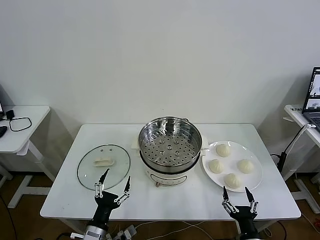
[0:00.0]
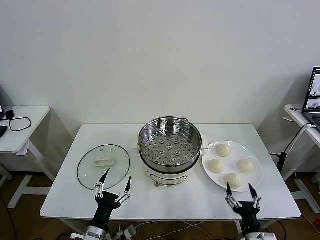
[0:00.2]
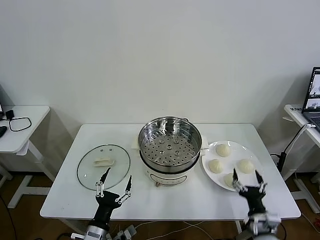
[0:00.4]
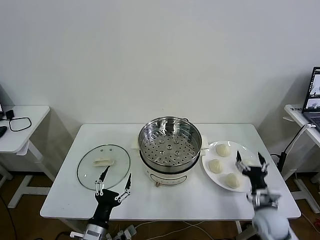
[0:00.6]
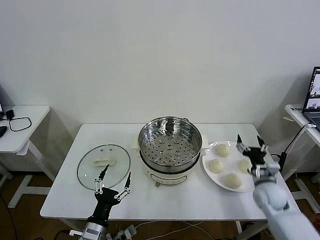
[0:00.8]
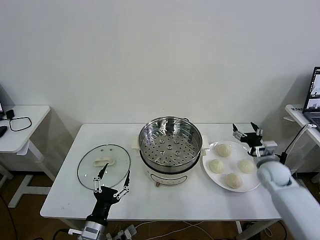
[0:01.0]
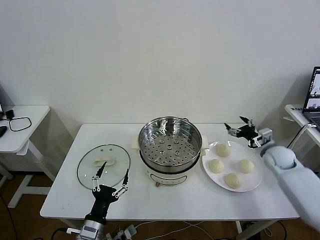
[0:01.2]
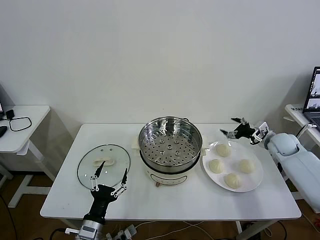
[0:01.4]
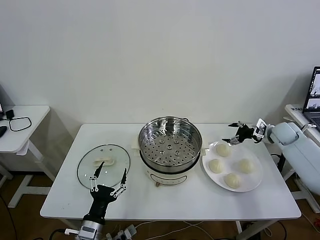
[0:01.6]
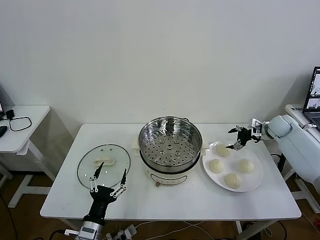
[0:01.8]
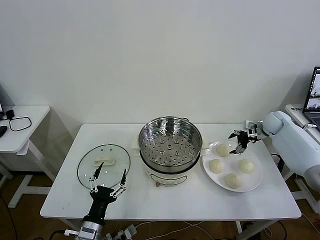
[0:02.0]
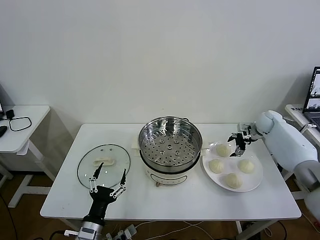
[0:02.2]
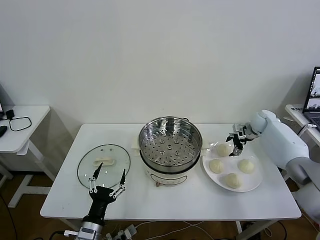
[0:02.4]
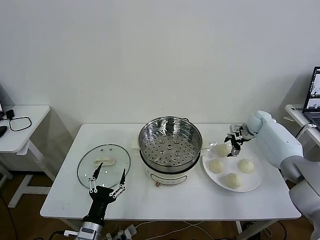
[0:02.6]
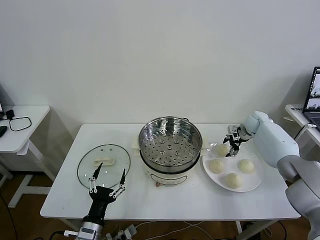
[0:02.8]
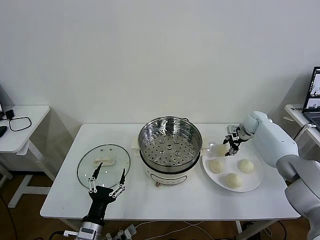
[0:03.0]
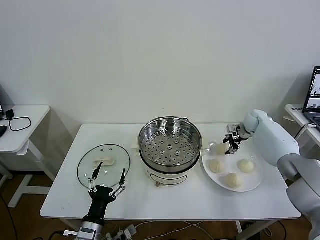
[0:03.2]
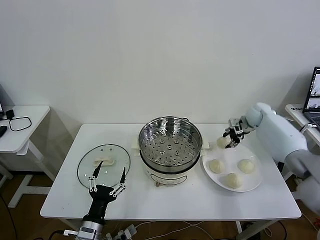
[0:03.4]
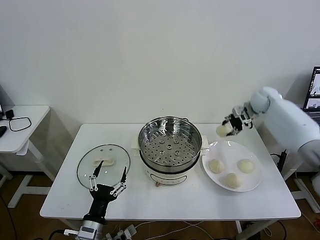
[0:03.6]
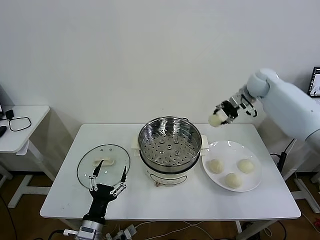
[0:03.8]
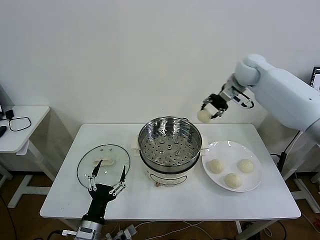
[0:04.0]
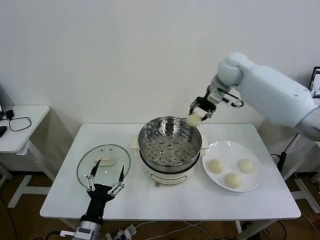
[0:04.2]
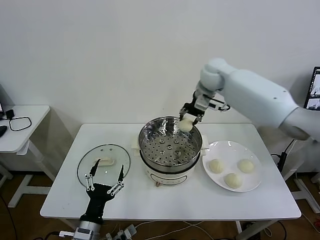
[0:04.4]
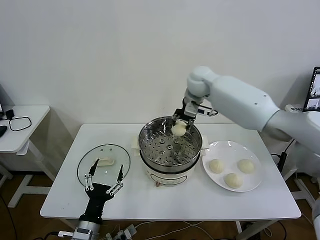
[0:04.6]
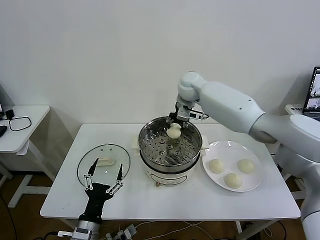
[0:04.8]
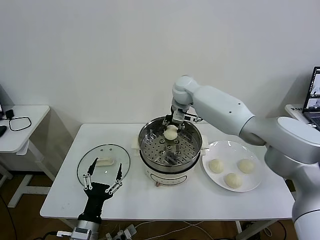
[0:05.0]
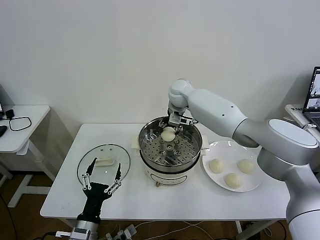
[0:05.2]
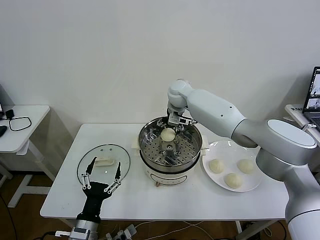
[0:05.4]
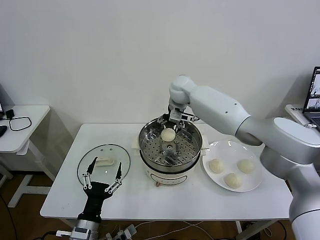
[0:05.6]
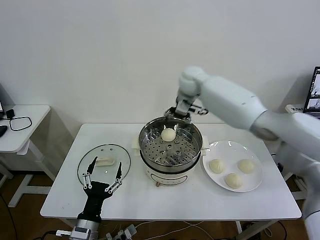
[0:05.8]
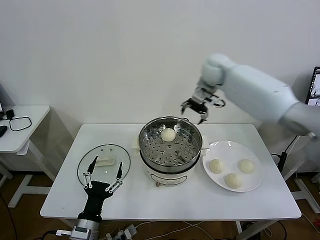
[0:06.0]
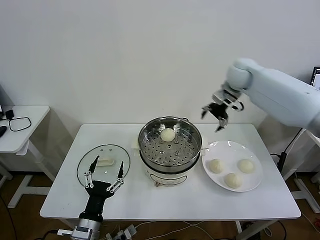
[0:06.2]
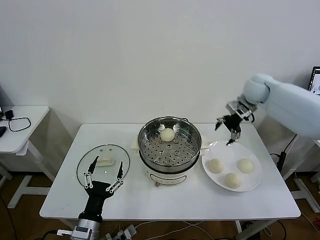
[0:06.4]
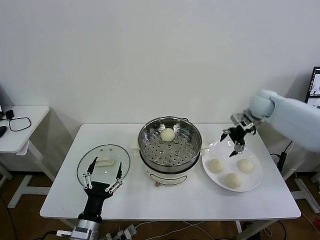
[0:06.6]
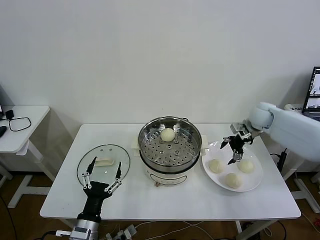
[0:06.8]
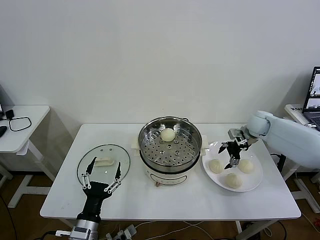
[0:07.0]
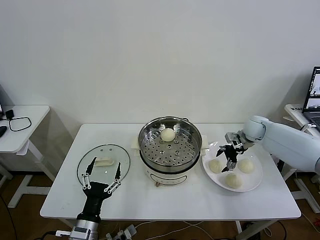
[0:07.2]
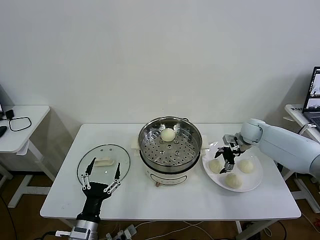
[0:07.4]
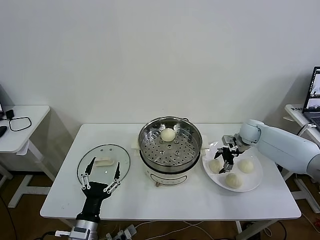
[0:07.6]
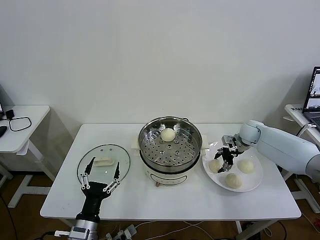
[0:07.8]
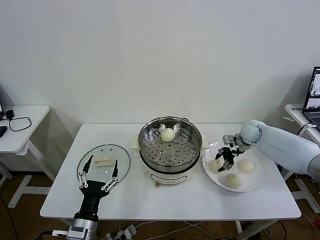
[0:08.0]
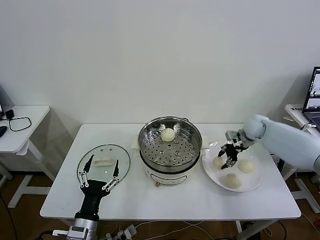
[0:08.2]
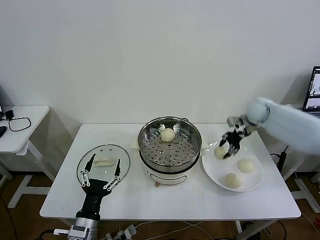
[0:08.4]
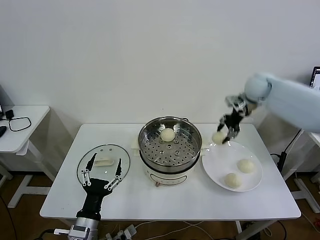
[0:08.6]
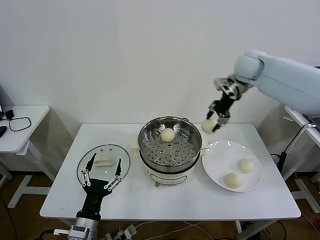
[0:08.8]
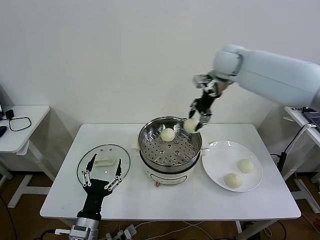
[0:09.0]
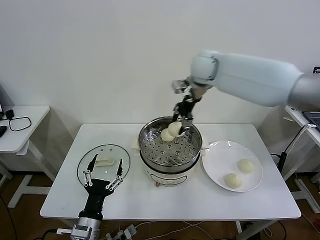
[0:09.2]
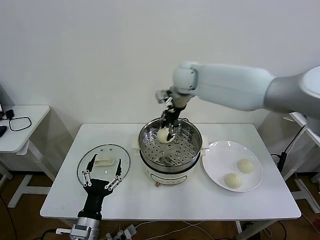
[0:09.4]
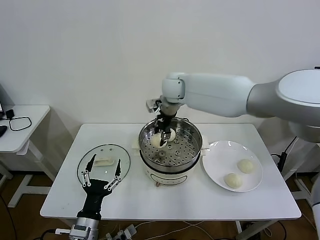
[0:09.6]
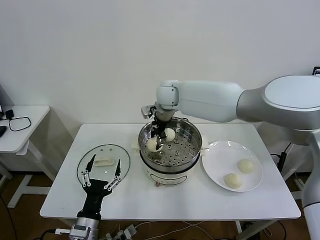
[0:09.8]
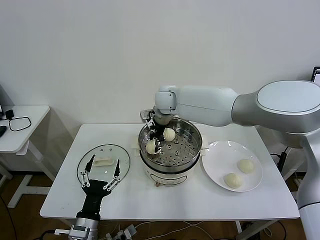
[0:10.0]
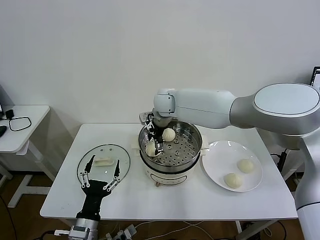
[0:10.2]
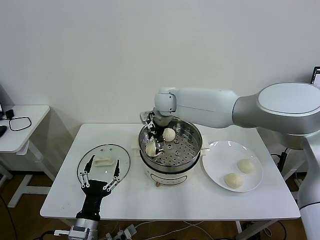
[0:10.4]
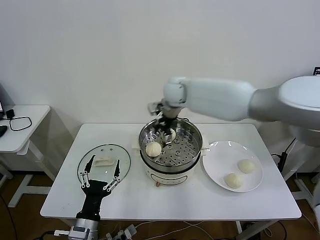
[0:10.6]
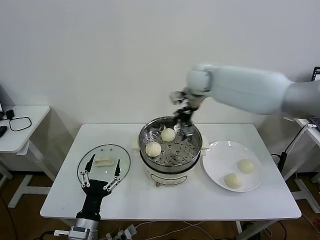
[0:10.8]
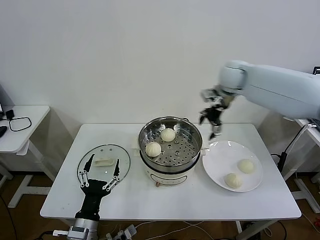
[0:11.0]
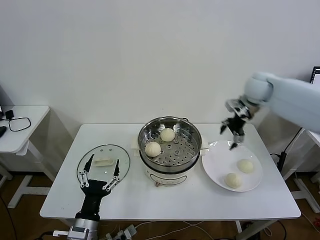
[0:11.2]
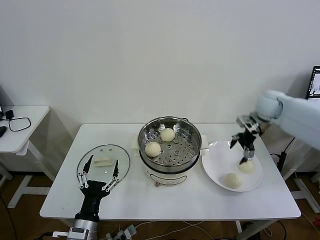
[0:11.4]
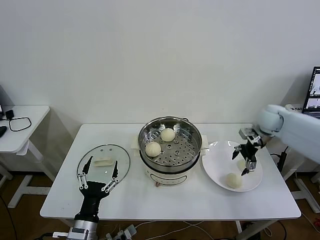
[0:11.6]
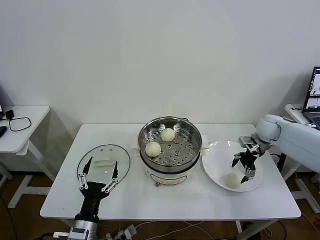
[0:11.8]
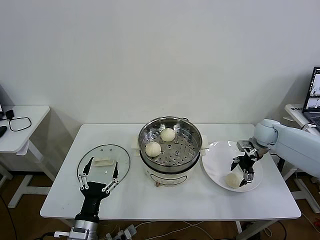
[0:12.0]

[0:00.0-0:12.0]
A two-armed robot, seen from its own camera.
Task of the whole recording: take steamed baozi put them in steamer then cover it.
Step, 0:00.0 to 0:03.0: Grasp the baozi in the plate with right gripper.
Step, 0:03.2 to 0:05.2: Place the baozi on the steamer with right gripper.
Step, 0:05.4 to 0:07.8: Grasp the baozi in the plate with right gripper.
Step, 0:08.0 to 0:10.2: Place the baozi on the steamer with right gripper.
0:01.6 to 0:03.0: The right gripper shifts some 10 cm to the left and forward, and closes up.
0:03.0 to 0:04.4: The right gripper moves to the left and upward, some 35 cm.
0:04.4 to 0:06.0: The right gripper shifts roughly 5 cm to the right, and opens.
0:06.0 to 0:07.6: The right gripper goes some 30 cm downward and to the right.
0:07.6 to 0:09.0: The right gripper moves upward and to the left, about 35 cm, and closes its fingers.
0:09.0 to 0:10.4: The right gripper travels to the left and downward by approximately 20 cm, and opens its fingers.
0:10.4 to 0:12.0: The right gripper is displaced to the right by approximately 35 cm.

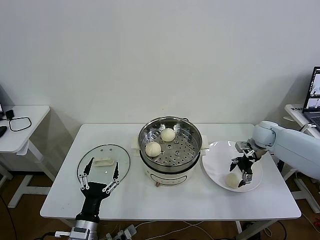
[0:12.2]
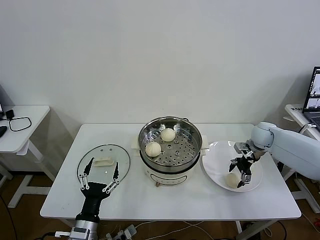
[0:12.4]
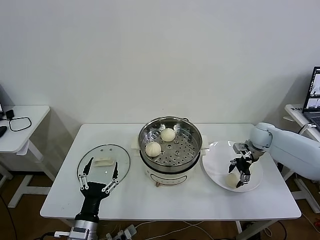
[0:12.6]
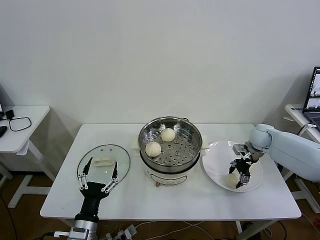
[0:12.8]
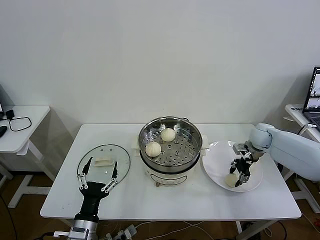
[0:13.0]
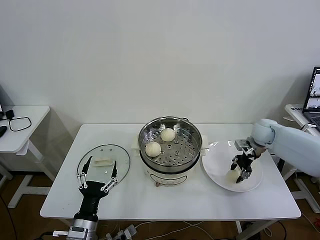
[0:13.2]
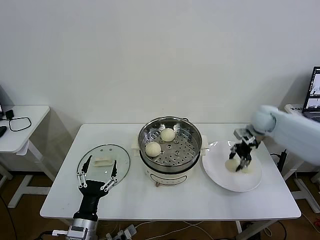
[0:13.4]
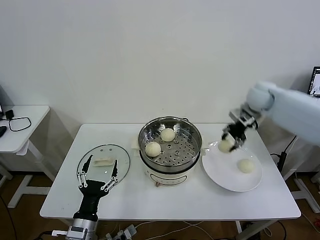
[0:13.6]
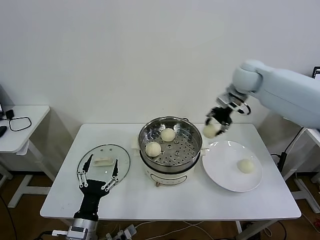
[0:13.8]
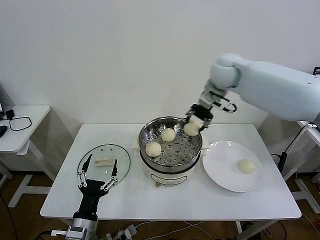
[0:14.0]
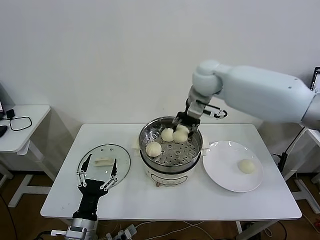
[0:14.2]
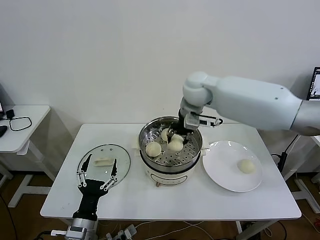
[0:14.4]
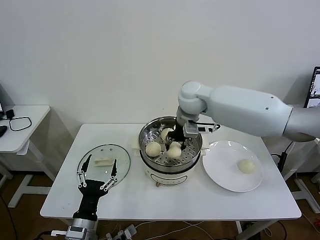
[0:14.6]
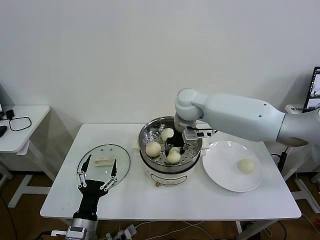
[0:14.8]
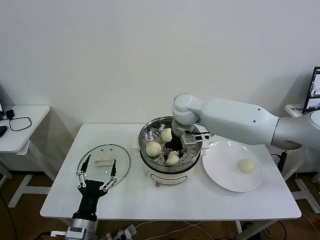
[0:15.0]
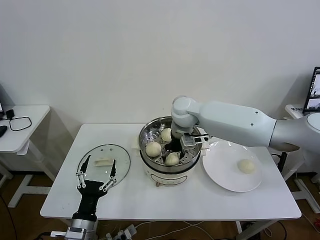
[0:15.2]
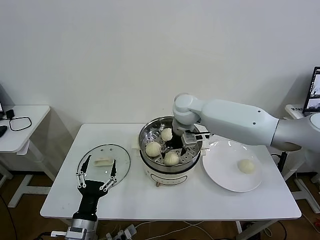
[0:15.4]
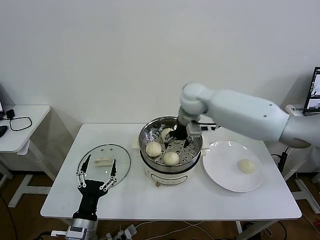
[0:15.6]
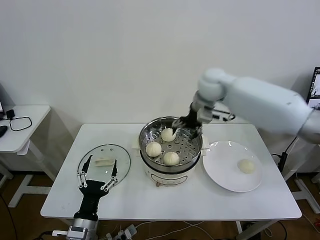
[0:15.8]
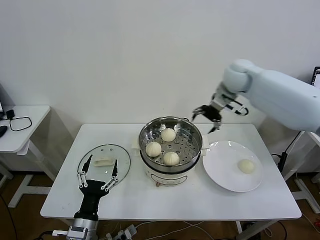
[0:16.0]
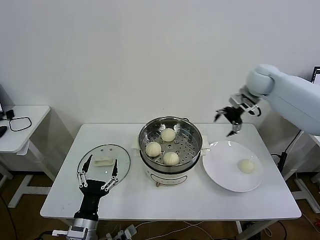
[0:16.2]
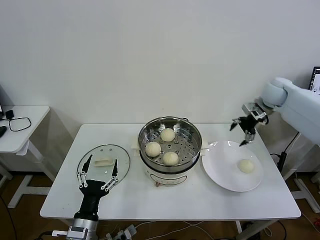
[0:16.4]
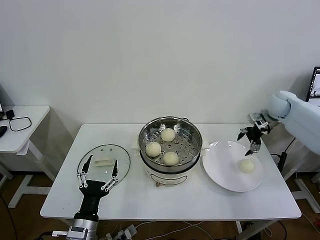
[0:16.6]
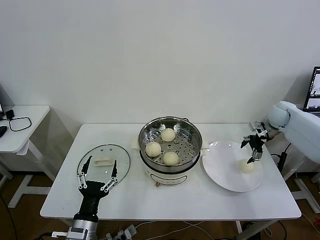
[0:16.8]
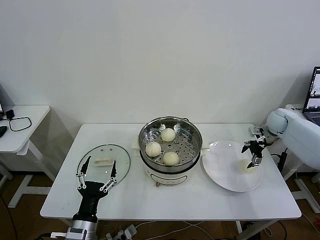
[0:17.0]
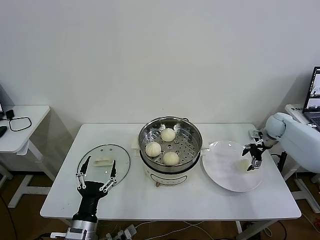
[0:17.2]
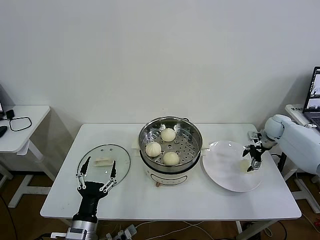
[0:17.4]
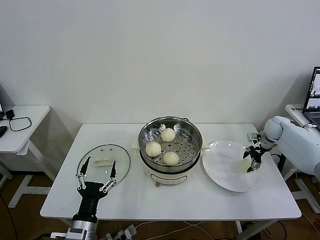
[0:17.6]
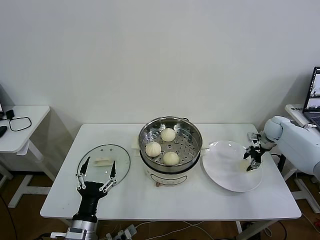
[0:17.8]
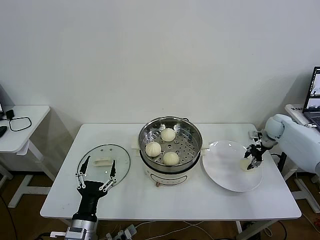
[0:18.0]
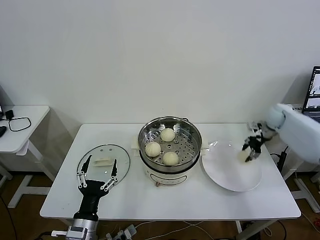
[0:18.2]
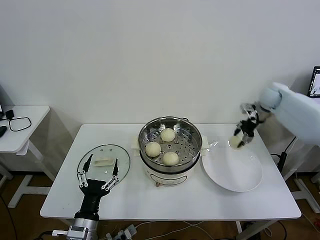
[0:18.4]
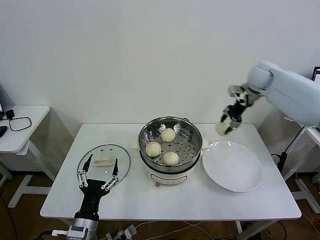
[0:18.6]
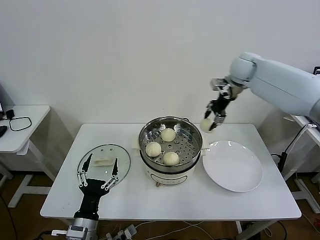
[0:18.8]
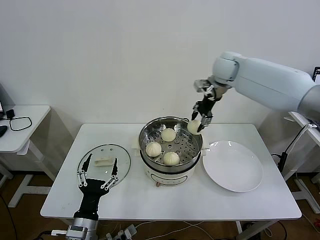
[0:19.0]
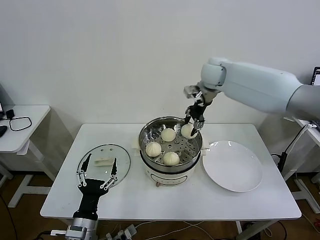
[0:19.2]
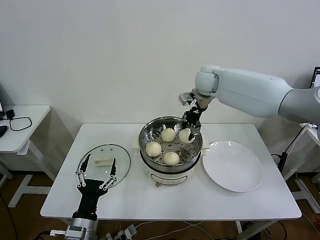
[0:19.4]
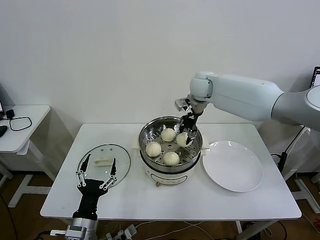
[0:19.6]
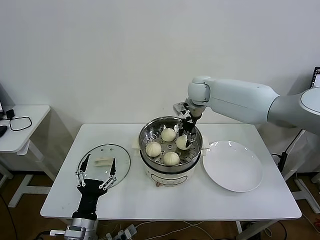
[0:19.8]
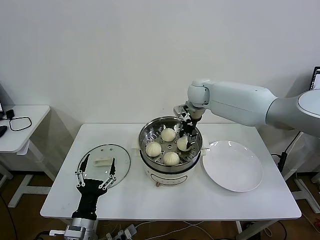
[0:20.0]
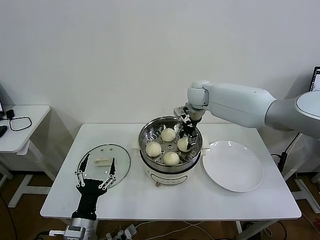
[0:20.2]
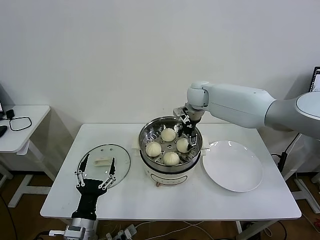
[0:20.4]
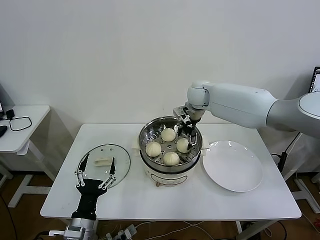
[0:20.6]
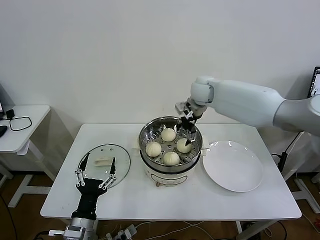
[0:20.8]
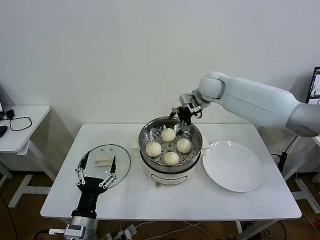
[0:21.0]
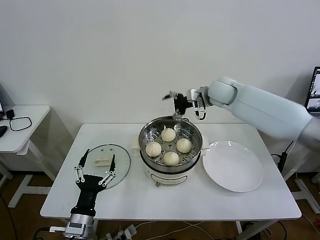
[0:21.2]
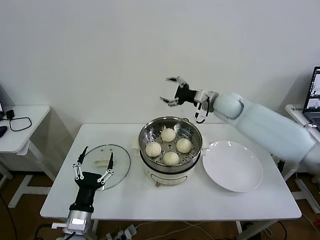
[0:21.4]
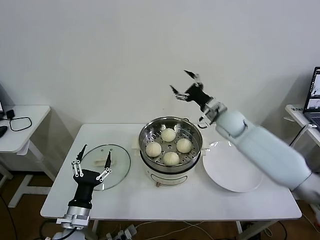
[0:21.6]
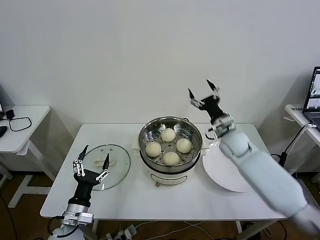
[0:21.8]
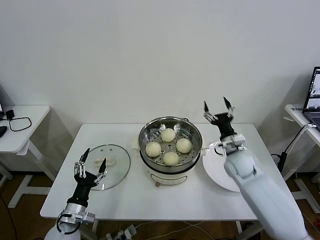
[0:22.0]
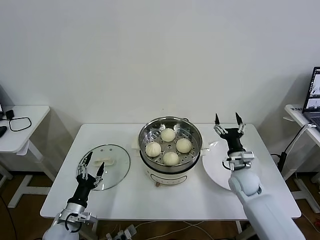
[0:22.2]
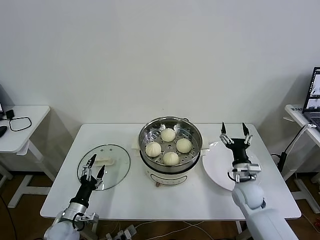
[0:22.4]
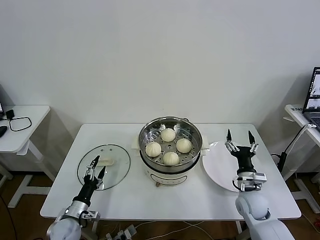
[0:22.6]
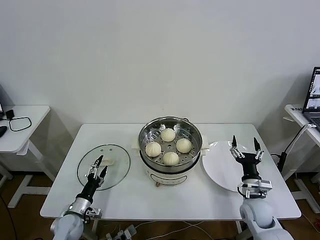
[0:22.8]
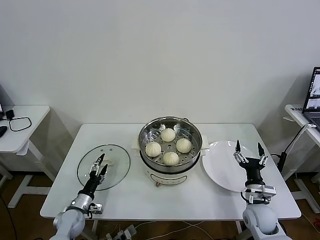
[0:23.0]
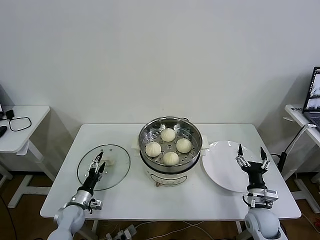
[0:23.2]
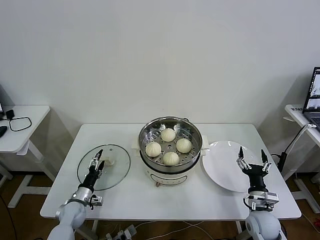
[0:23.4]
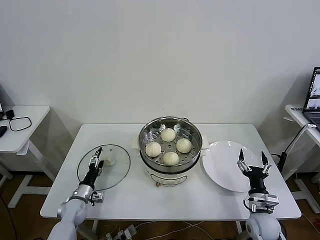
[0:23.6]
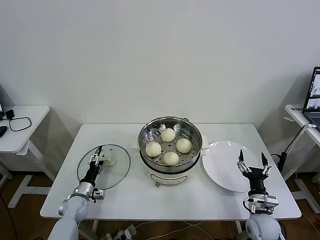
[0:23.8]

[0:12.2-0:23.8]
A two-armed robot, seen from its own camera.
Task of the whole recording: take steamed baozi put them in steamer then cover it.
Step, 0:13.2 to 0:15.2: Place the baozi on the steamer with right gripper.
Step, 0:15.4 to 0:17.8: Grasp the baozi in the plate with right gripper.
Step, 0:18.2 to 0:20.4: Place the baozi on the steamer with right gripper.
0:12.2 to 0:13.6: The right gripper heads upward and to the left, covering about 20 cm, and closes its fingers.
0:13.6 to 0:15.0: The right gripper travels to the left by roughly 25 cm.
0:15.0 to 0:16.6: The right gripper heads to the right, covering approximately 35 cm, and opens up.
0:16.6 to 0:18.0: The right gripper heads downward, covering about 10 cm, and closes its fingers.
0:18.0 to 0:19.4: The right gripper heads to the left and upward, covering some 35 cm.
0:19.4 to 0:21.0: The right gripper opens its fingers.
0:21.0 to 0:22.4: The right gripper goes about 40 cm downward, backward and to the right, while the left gripper shifts roughly 15 cm downward, to the left and forward.
0:22.4 to 0:23.8: The left gripper heads forward and downward, covering some 15 cm, while the right gripper travels backward by some 10 cm.
